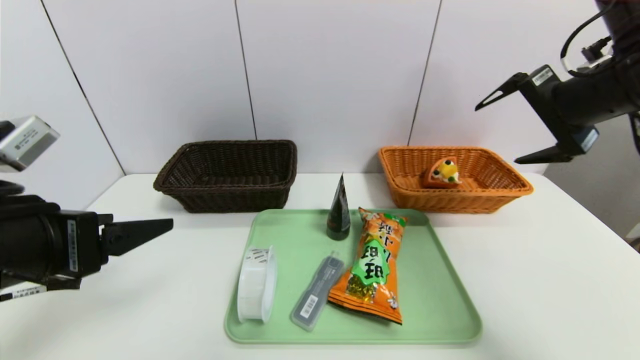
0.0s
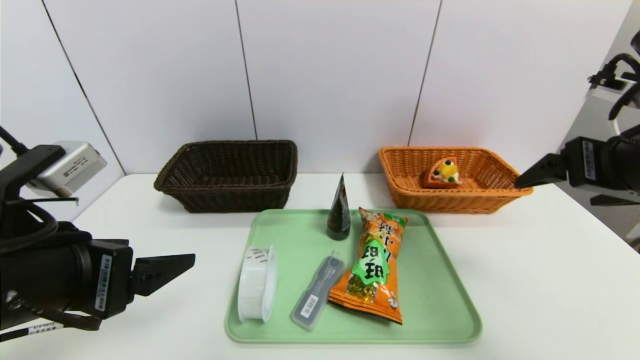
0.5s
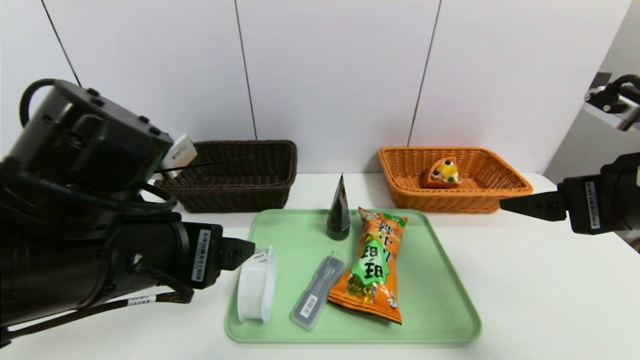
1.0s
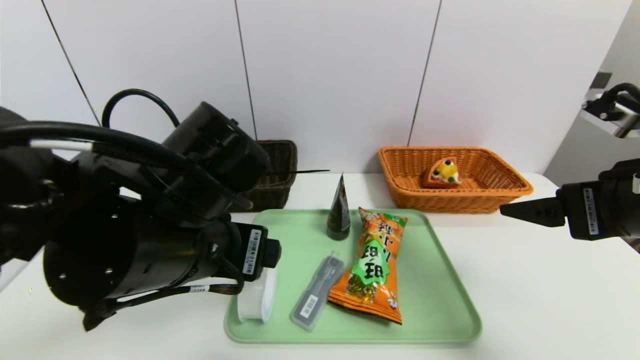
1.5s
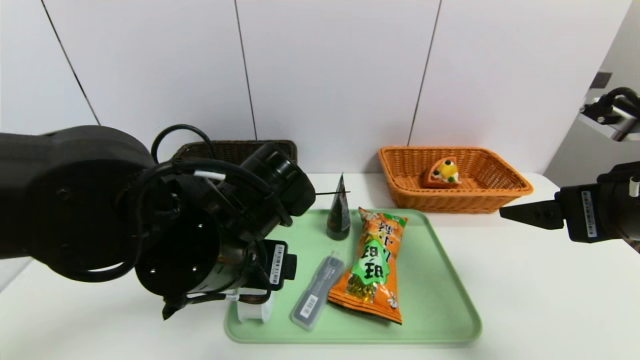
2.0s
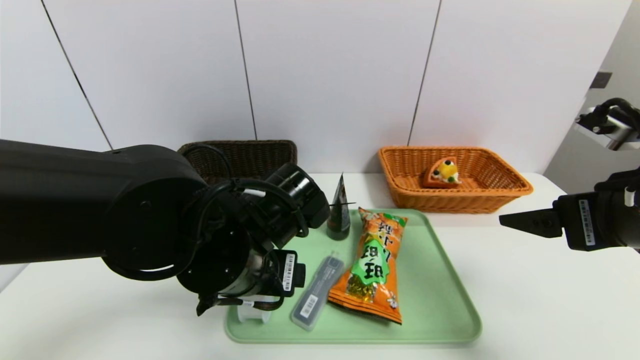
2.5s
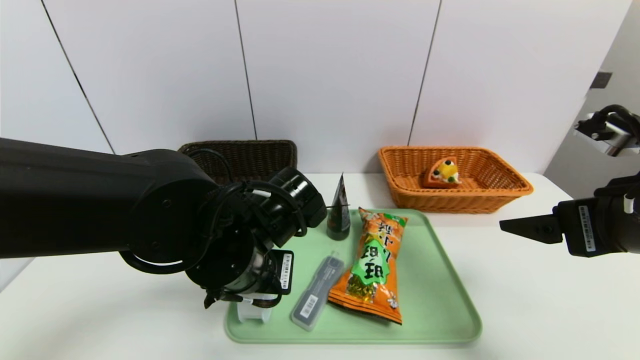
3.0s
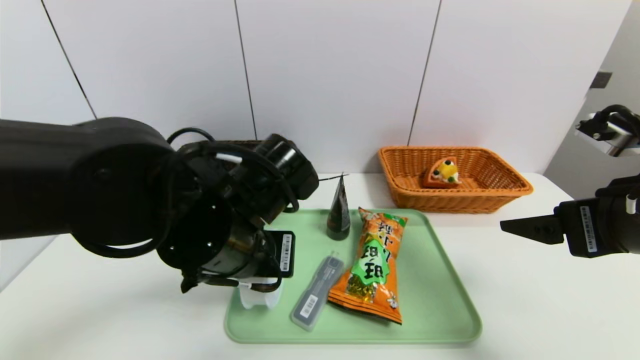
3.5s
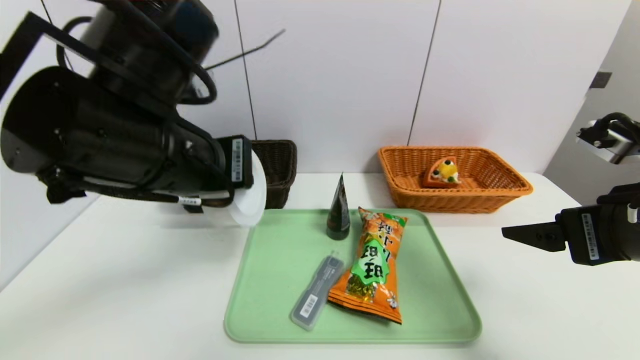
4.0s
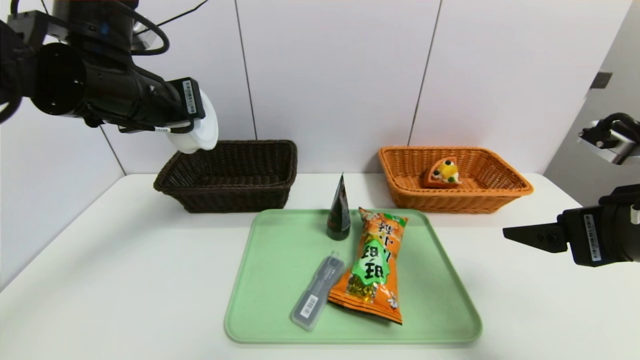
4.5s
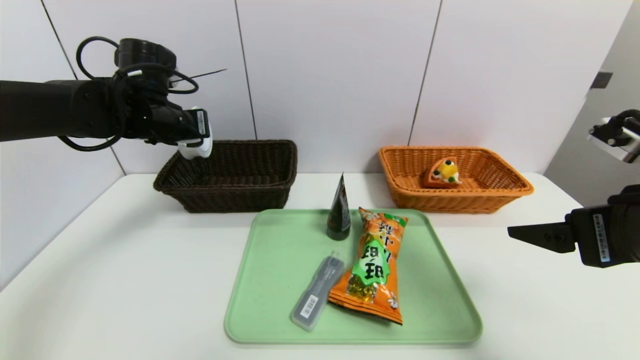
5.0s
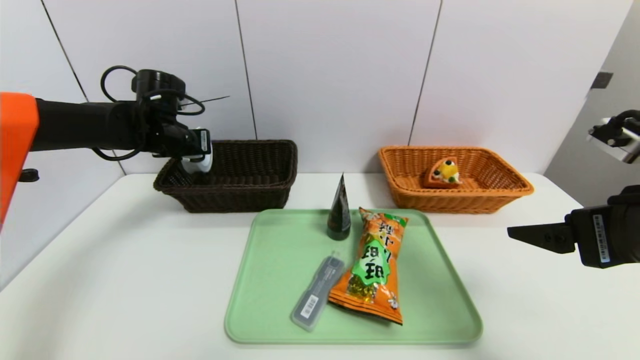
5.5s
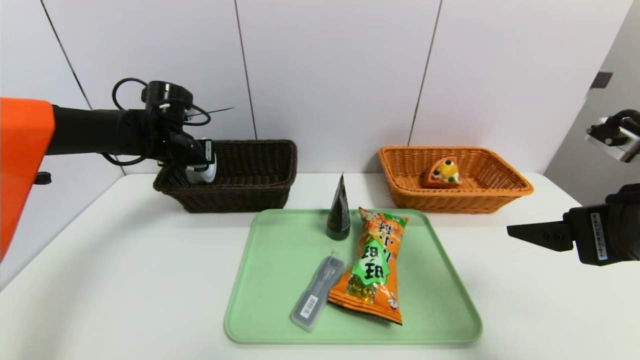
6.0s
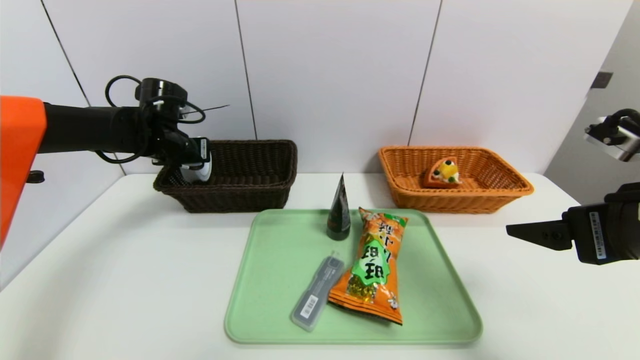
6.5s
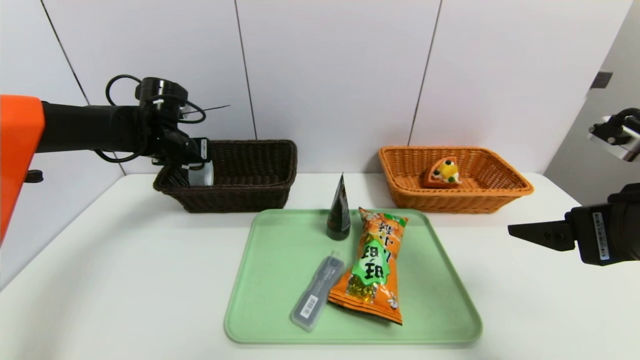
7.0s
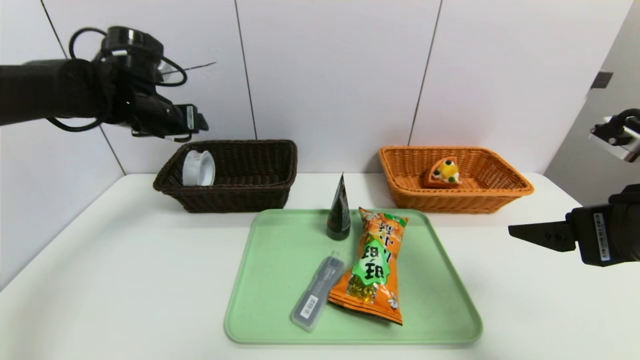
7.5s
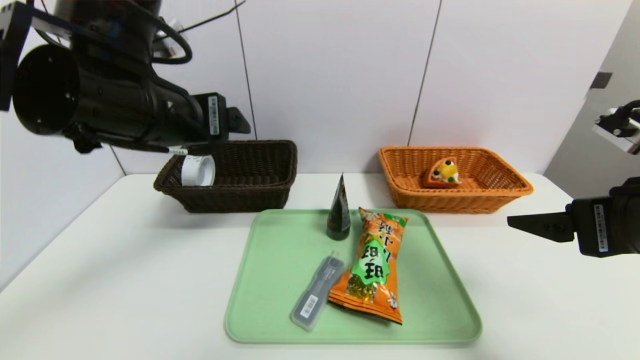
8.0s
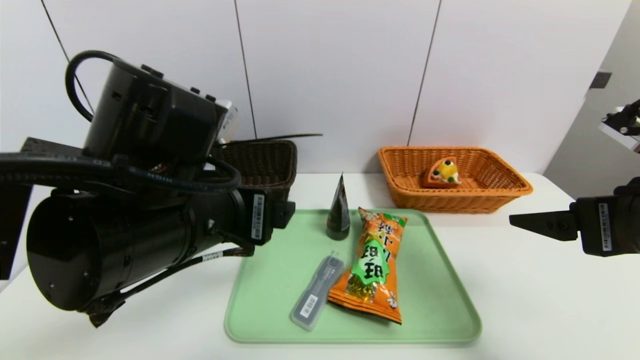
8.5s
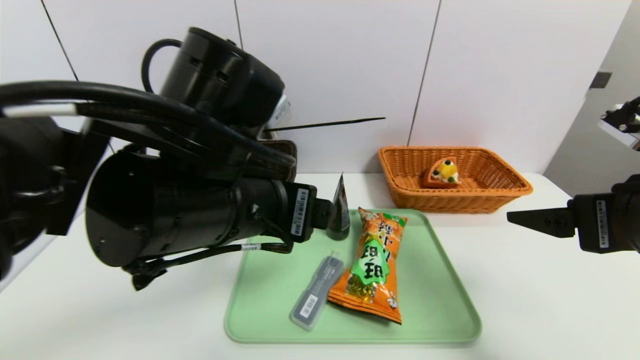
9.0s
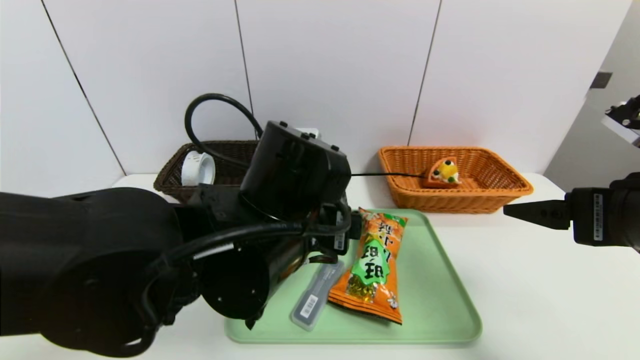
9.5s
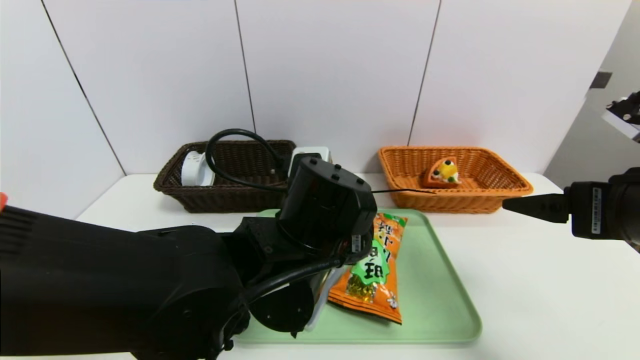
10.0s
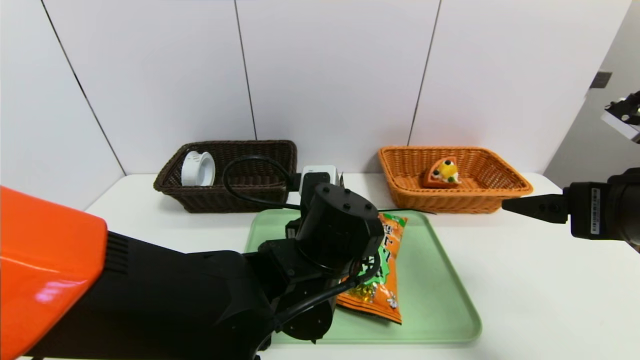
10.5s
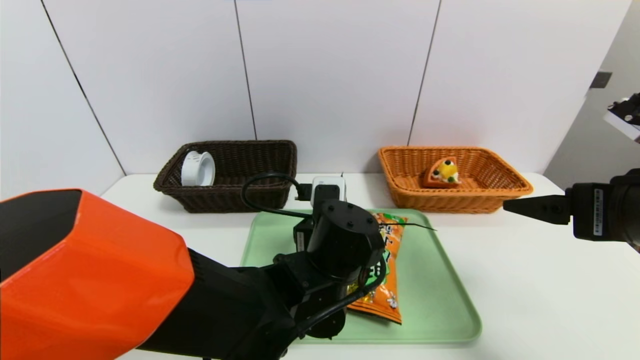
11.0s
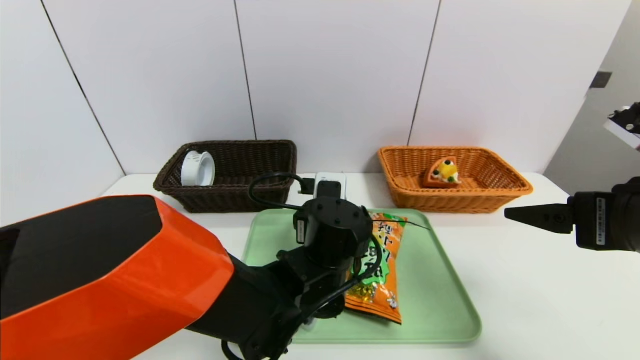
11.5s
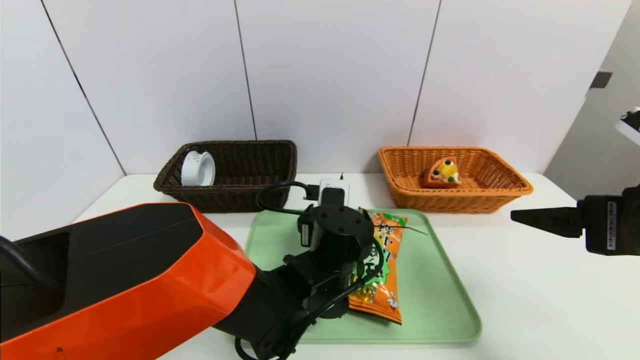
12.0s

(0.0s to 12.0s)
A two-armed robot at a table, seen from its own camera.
Task of the whole recording: place the food in the right basket with the right gripper, and place the non food items in the left basket with the left gripper.
Step, 0.0s - 7.0s: Grasp the tape and put it in the left basket.
0.0s - 2.0s: The left gripper moves to the right, approximately 15 cm. Meanwhile the right gripper shifts roughly 15 cm backward and downward.
2.0s - 4.0s: The left gripper is displaced upward by approximately 10 cm, and closes up.
4.0s - 6.0s: The left gripper shifts roughly 30 cm forward, to the left and downward.
6.0s - 8.0s: The left gripper travels backward, upward and to the right by about 25 cm, and opens its fingers.
8.0s - 10.0s: The left gripper moves to the right and downward, some 20 cm.
10.0s - 12.0s: The left gripper travels downward and forward by about 10 cm.

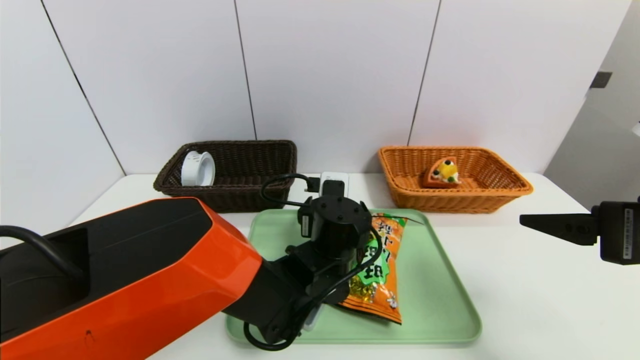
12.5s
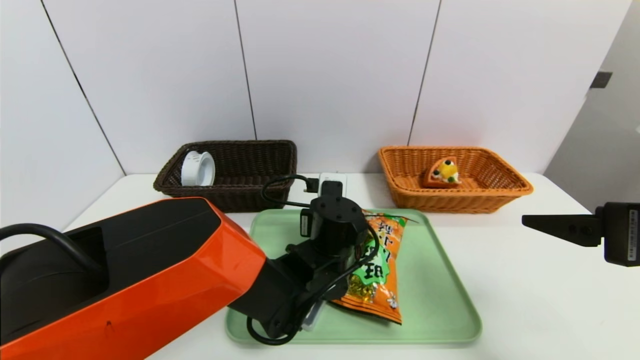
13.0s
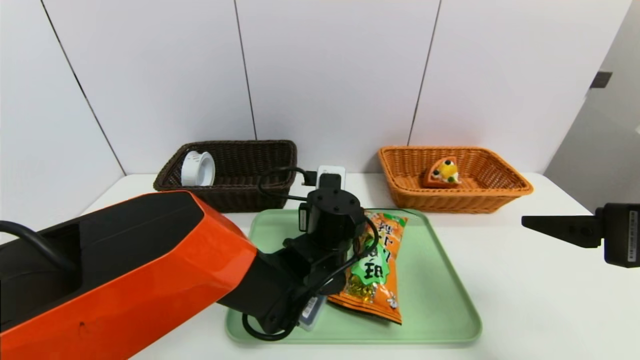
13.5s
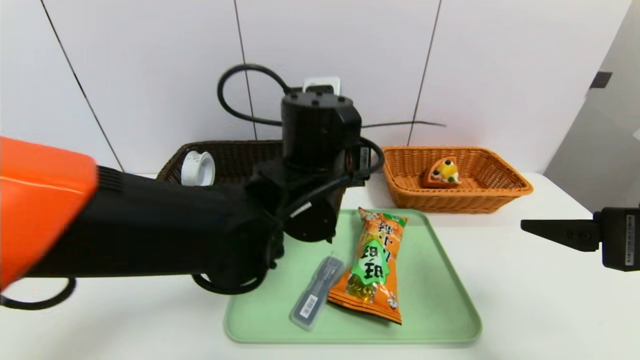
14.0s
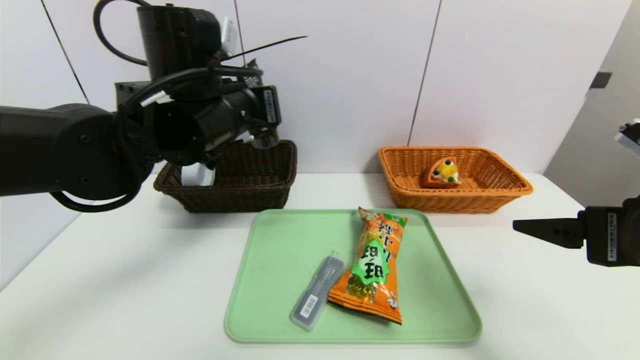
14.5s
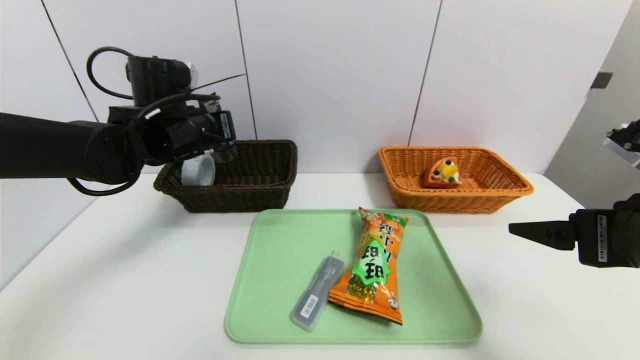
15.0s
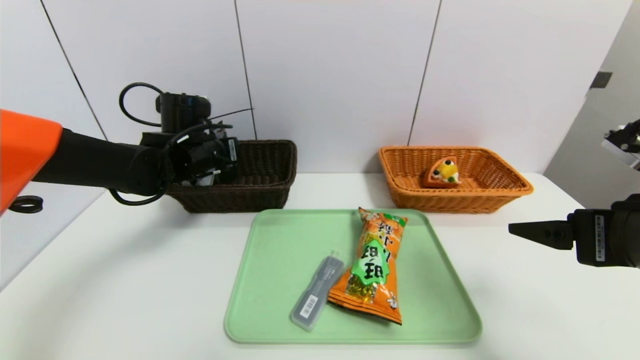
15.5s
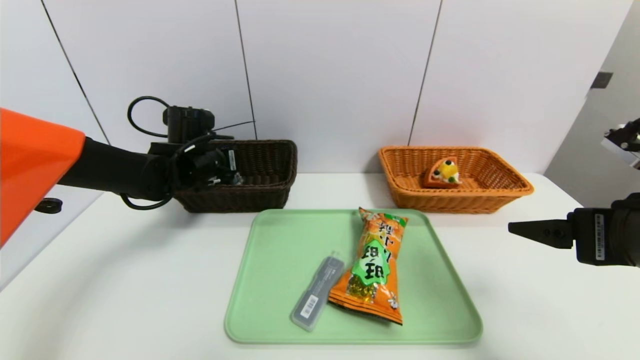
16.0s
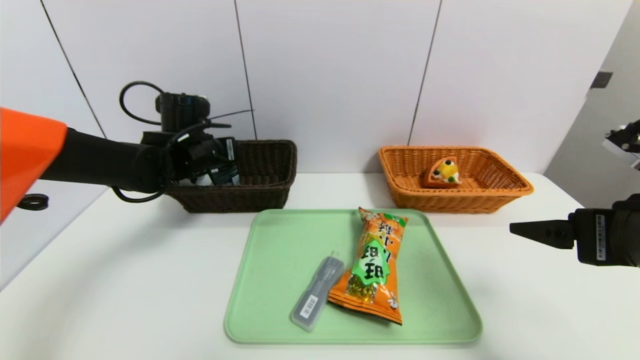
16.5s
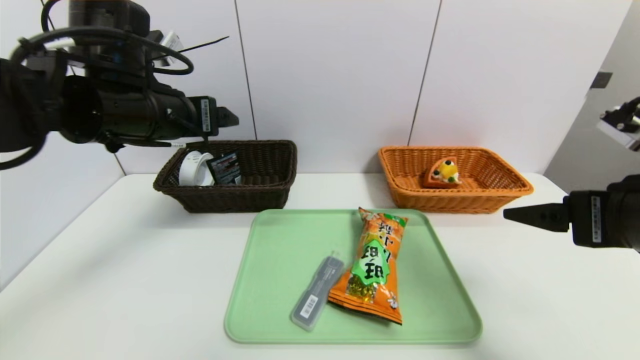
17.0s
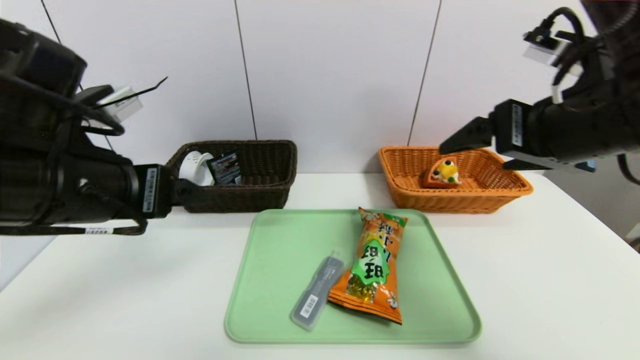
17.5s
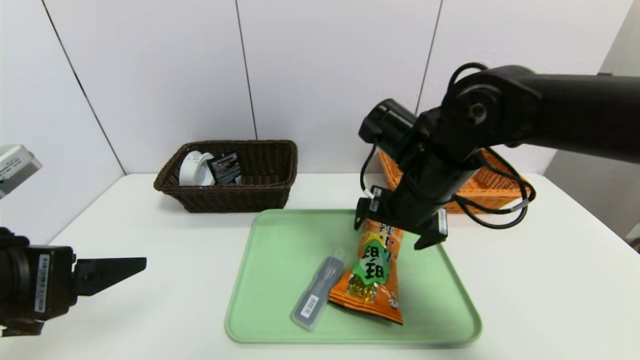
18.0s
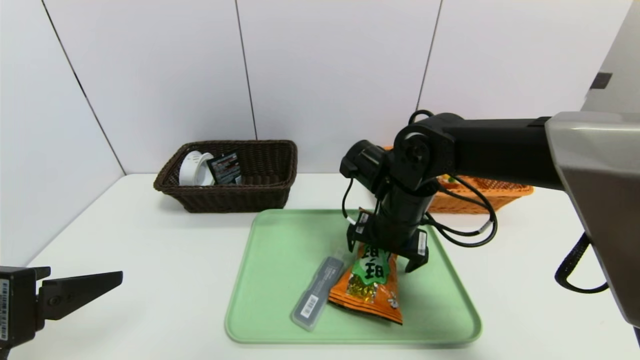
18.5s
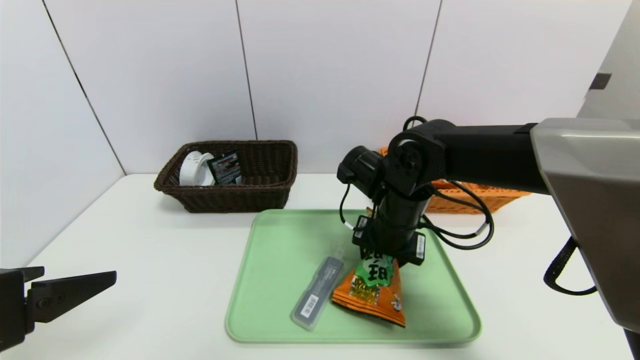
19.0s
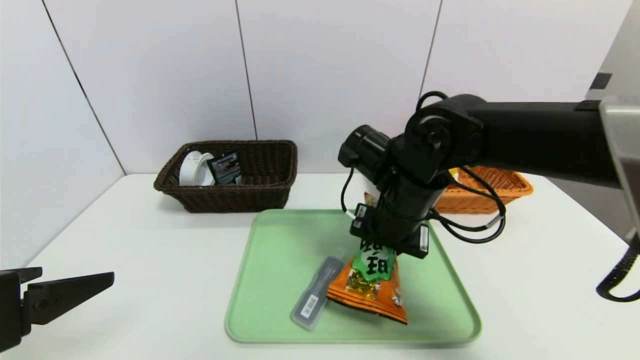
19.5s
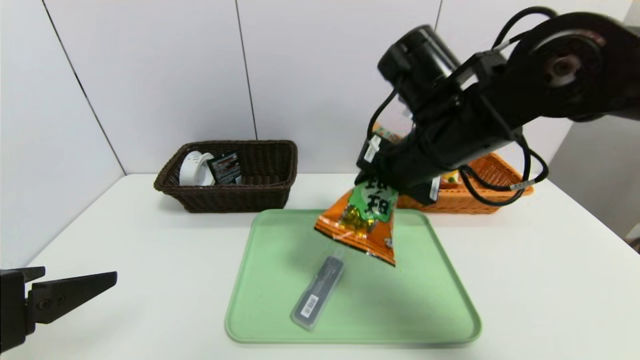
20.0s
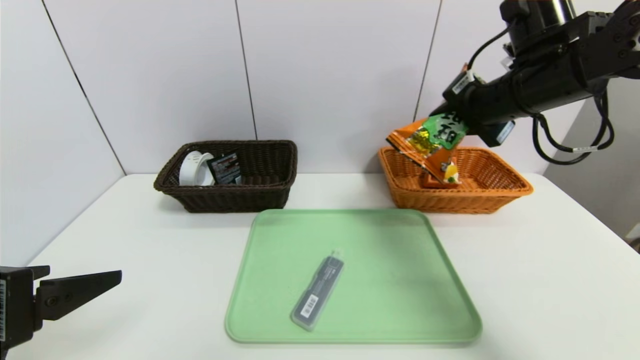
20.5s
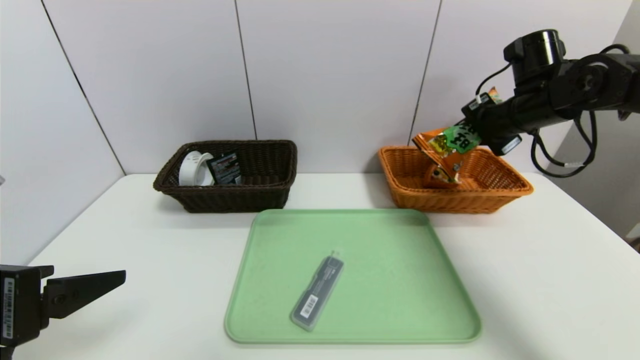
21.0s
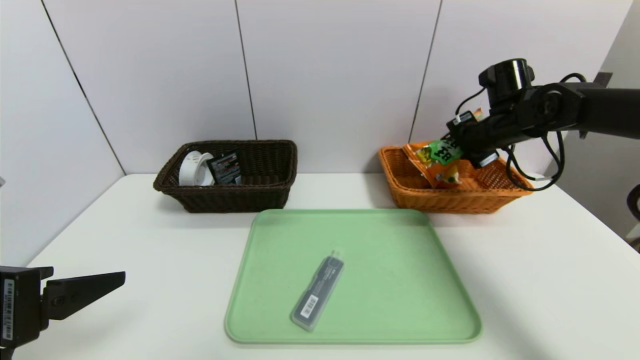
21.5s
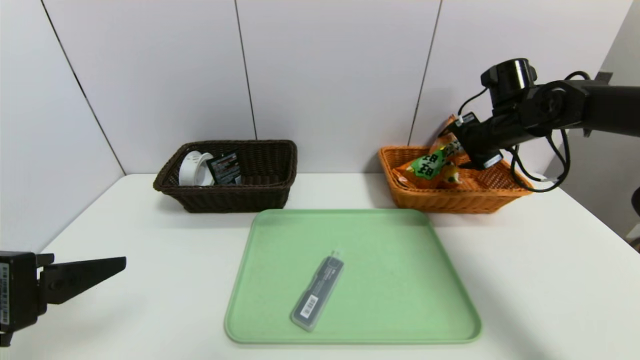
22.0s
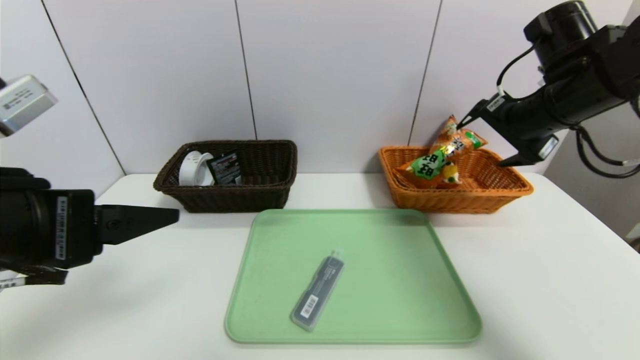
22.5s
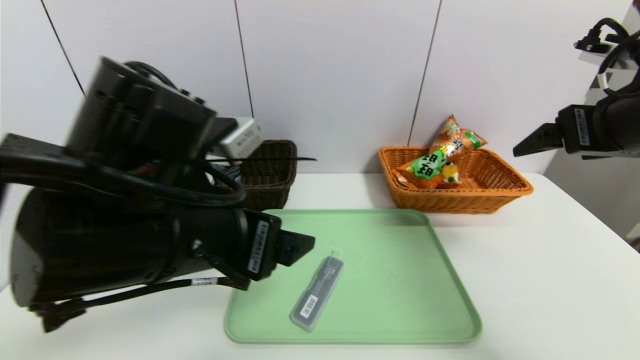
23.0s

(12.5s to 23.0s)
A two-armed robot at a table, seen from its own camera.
Task of the whole recording: place the food in the right basket with the right gripper, and place the non food items in the left basket with the left gripper.
Step, 12.5s - 16.5s: Grasp the soft cleanser and put it in the left basket.
Step, 17.0s - 22.0s: Grasp the cookie and put it in the right basket.
12.5s - 14.5s: The left gripper is displaced upward and to the left by about 25 cm, and closes its fingers.
14.5s - 16.5s: The left gripper is displaced forward, downward and to the left by approximately 15 cm, and opens its fingers.
16.5s - 19.0s: The right gripper is displaced to the left, forward and downward by roughly 25 cm, and closes up. Meanwhile the left gripper shifts about 35 cm backward.
19.0s - 21.0s: The right gripper shifts about 25 cm to the right, upward and forward.
21.0s - 23.0s: The right gripper is displaced backward by some 15 cm, and opens its fingers; the left gripper moves to the right and forward, approximately 15 cm.
